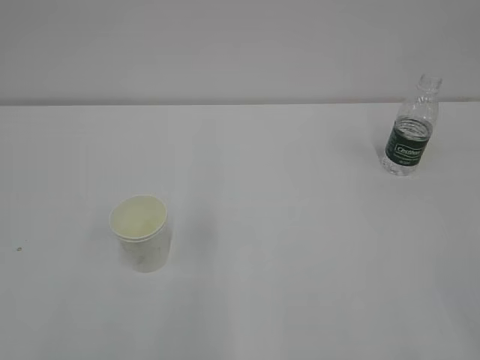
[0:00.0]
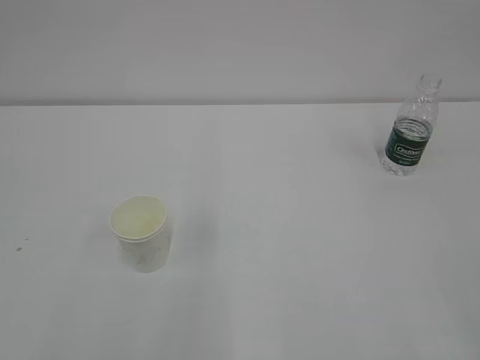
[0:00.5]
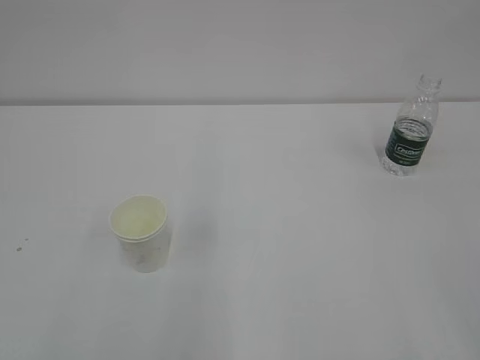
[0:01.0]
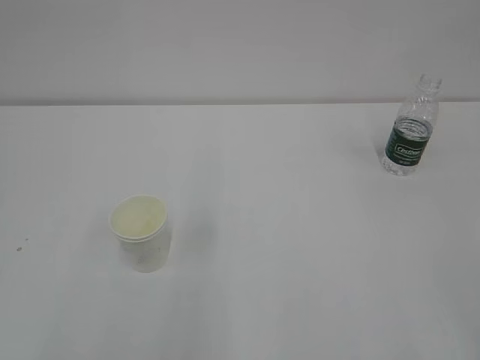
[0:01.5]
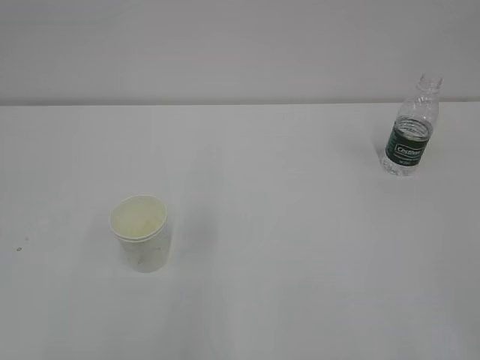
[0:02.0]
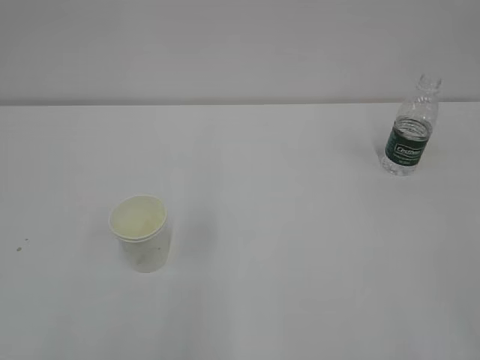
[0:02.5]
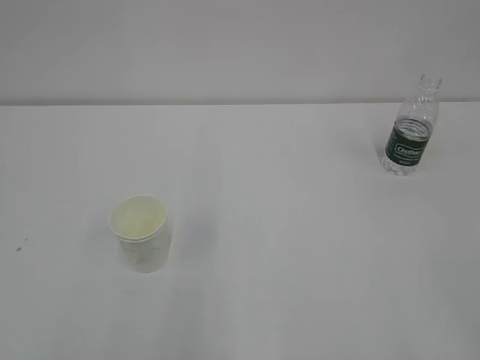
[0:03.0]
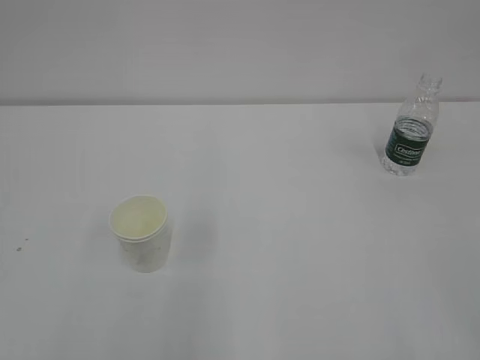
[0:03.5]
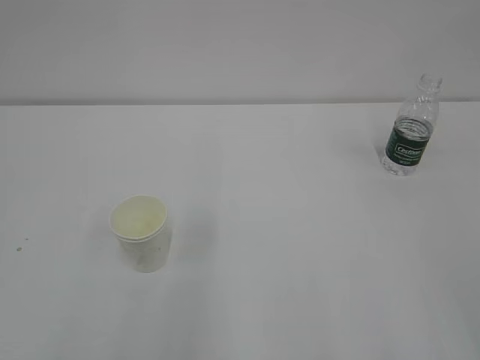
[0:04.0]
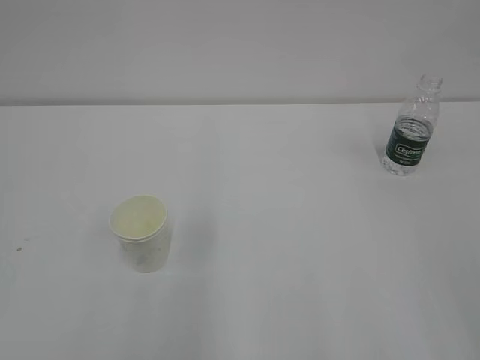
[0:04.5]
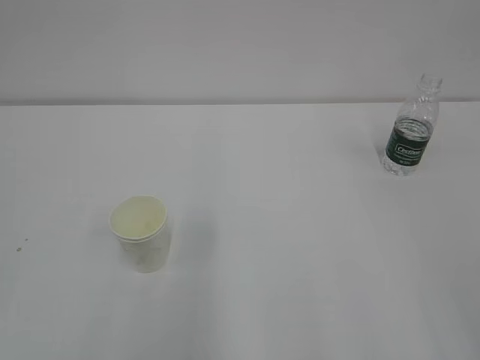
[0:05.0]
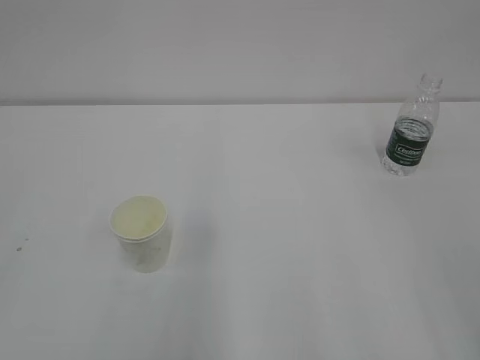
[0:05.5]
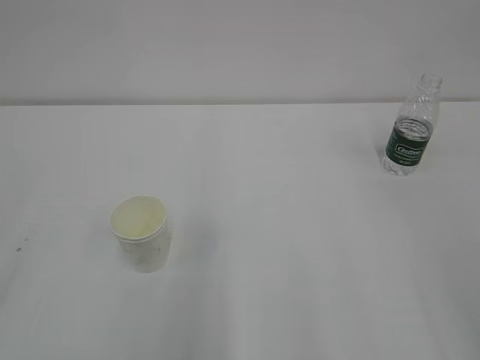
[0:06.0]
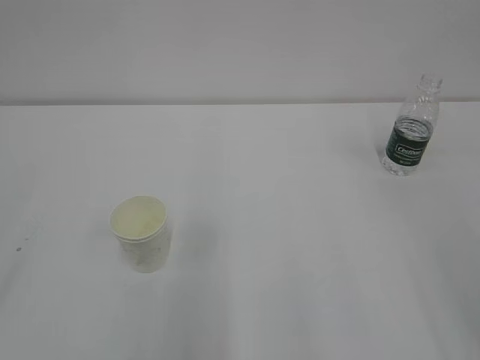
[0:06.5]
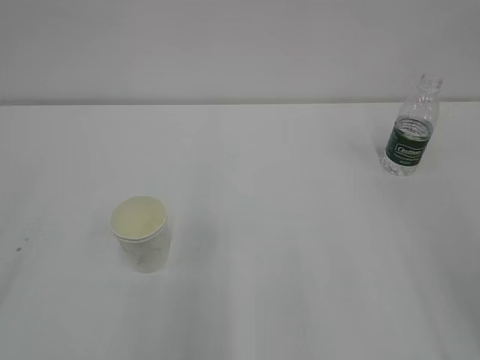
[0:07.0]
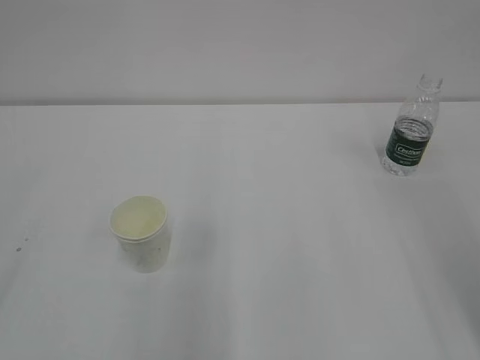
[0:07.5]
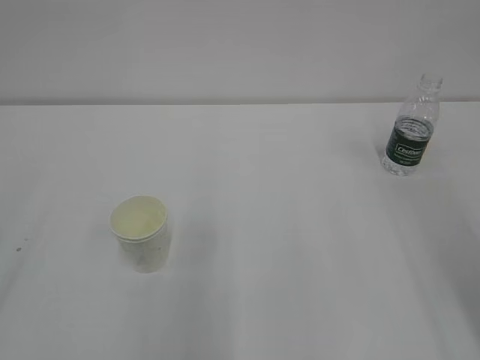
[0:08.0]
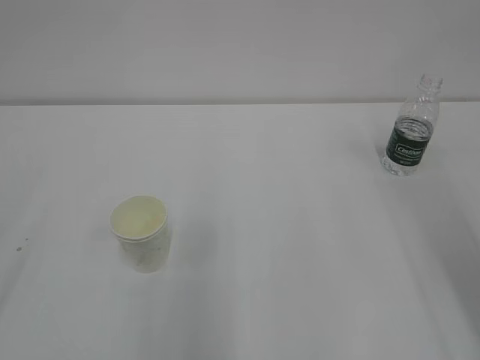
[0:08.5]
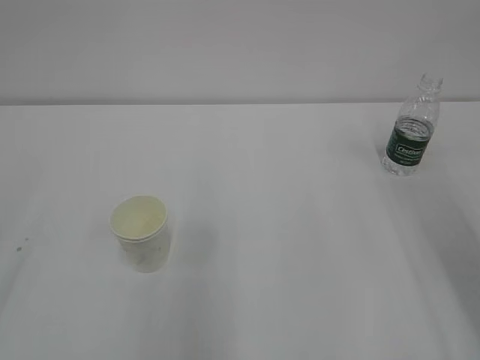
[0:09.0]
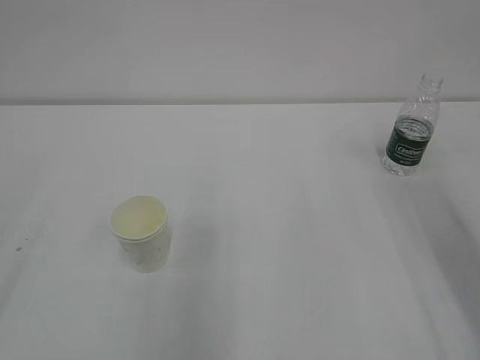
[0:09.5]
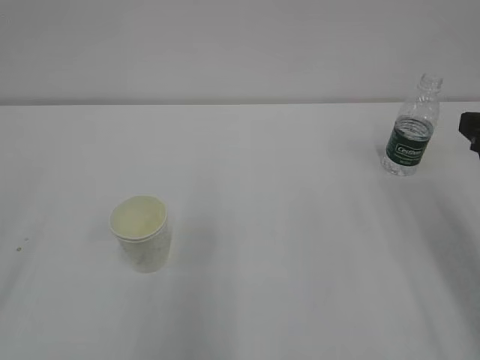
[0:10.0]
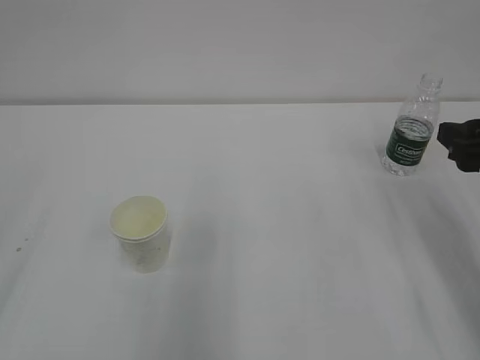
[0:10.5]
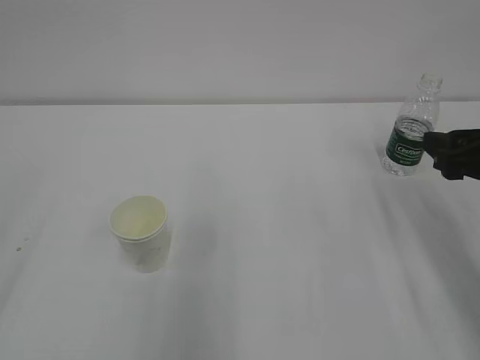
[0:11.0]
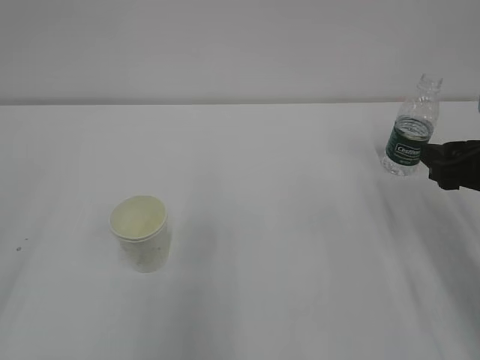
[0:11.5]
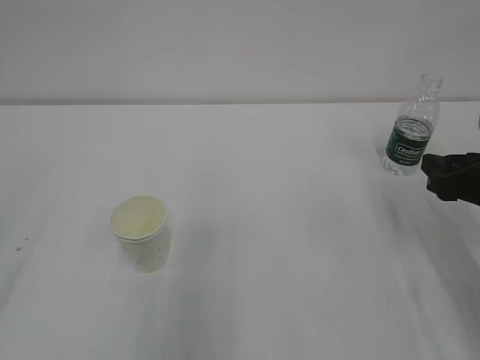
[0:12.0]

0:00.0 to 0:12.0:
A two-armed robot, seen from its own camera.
0:10.0 to 0:12.0: The right gripper shifts about 10 cm downward.

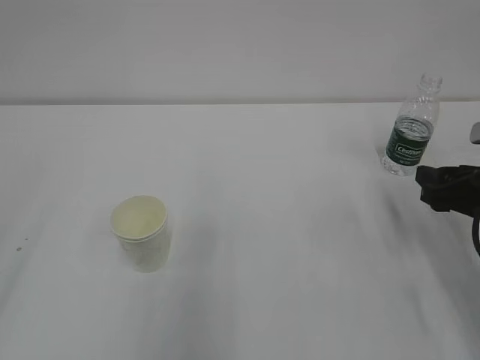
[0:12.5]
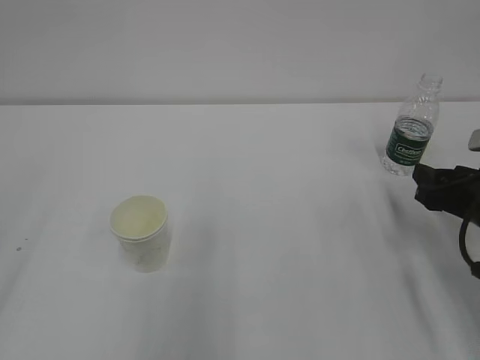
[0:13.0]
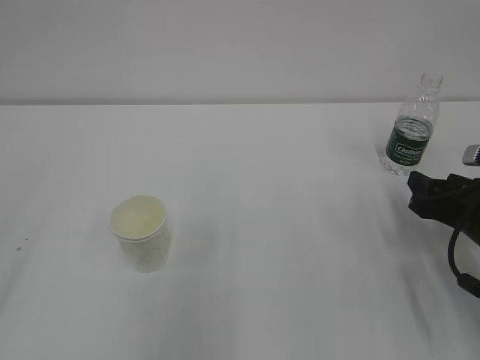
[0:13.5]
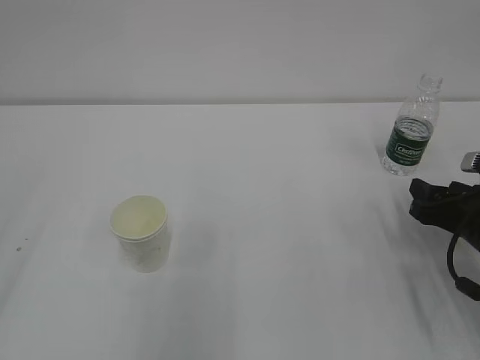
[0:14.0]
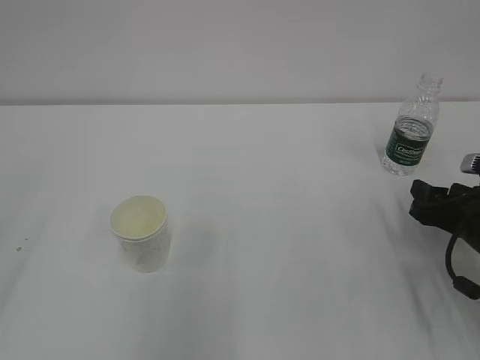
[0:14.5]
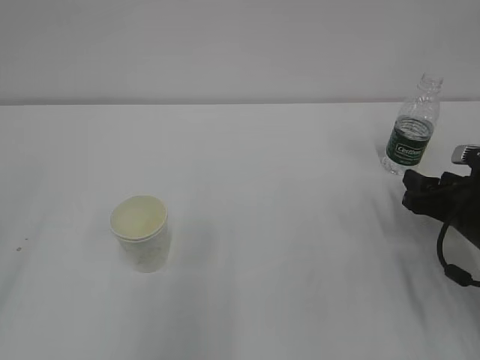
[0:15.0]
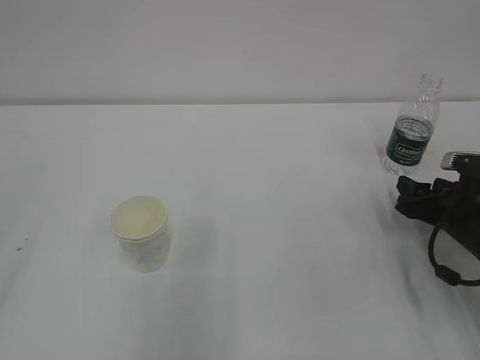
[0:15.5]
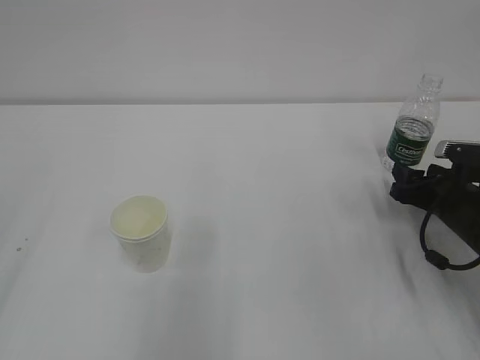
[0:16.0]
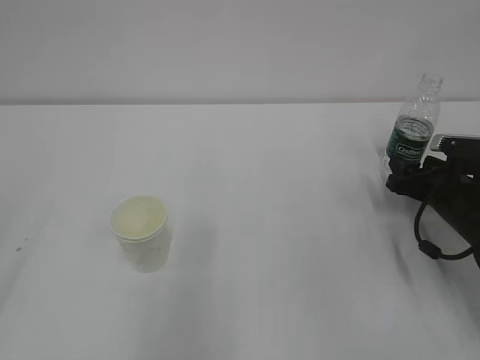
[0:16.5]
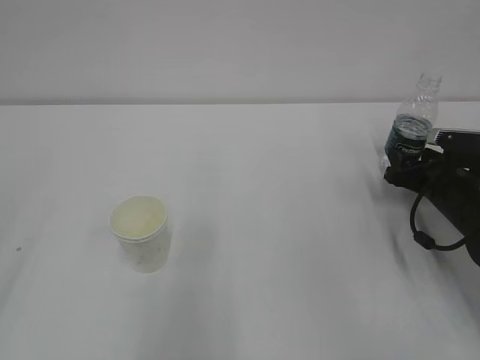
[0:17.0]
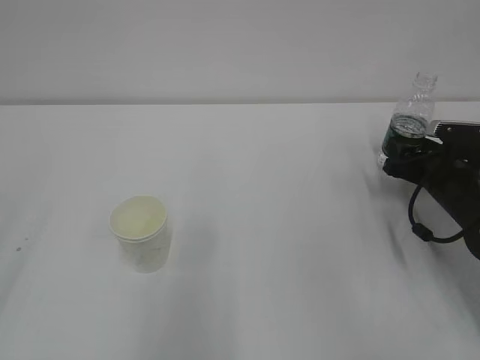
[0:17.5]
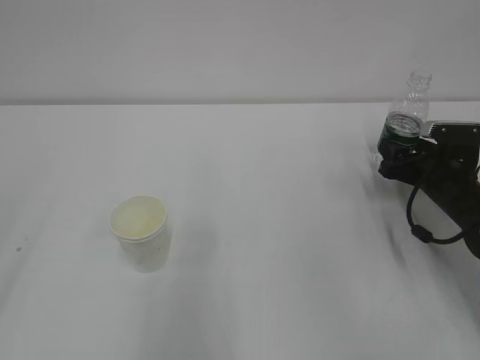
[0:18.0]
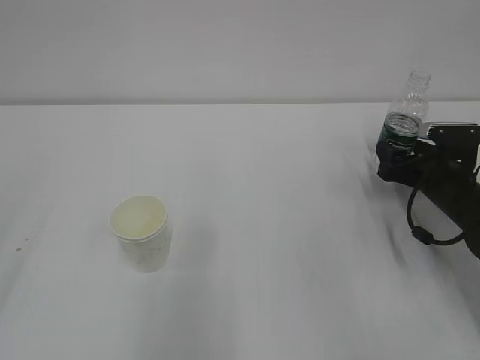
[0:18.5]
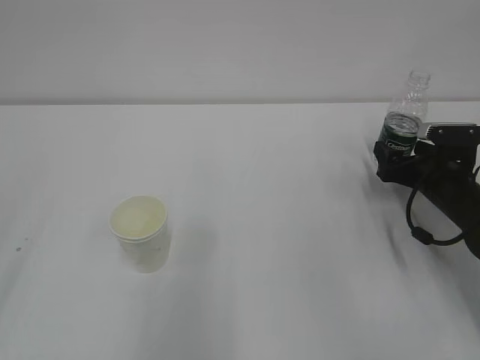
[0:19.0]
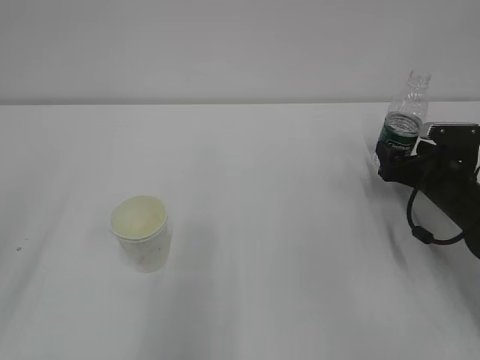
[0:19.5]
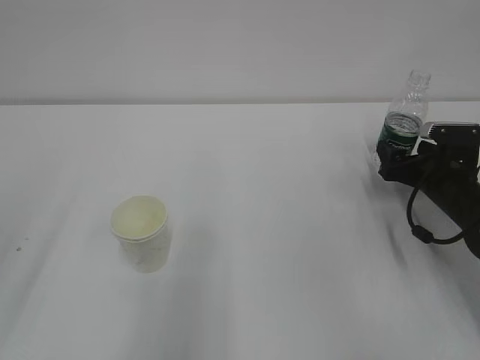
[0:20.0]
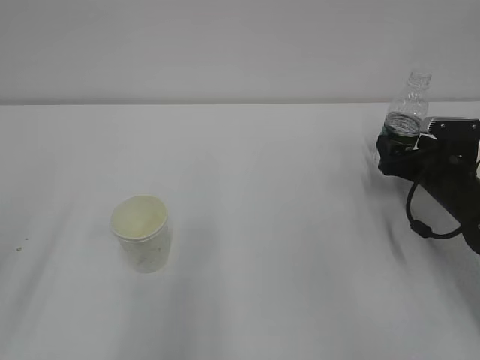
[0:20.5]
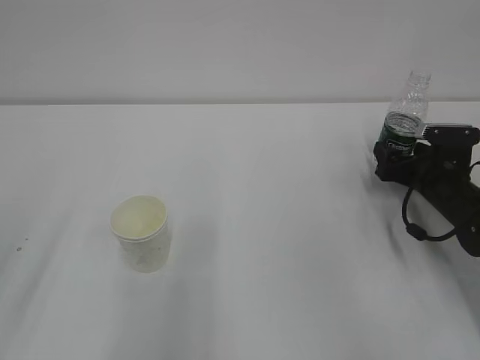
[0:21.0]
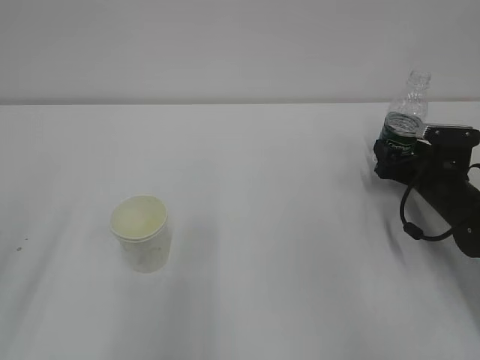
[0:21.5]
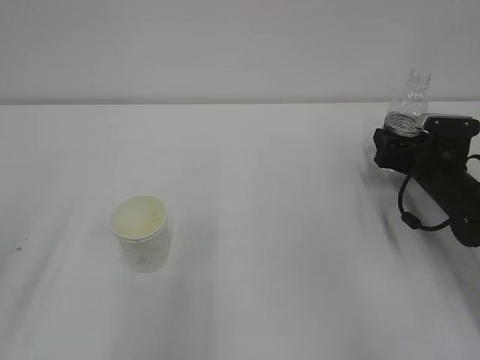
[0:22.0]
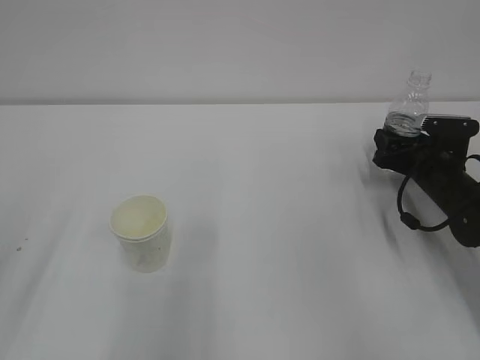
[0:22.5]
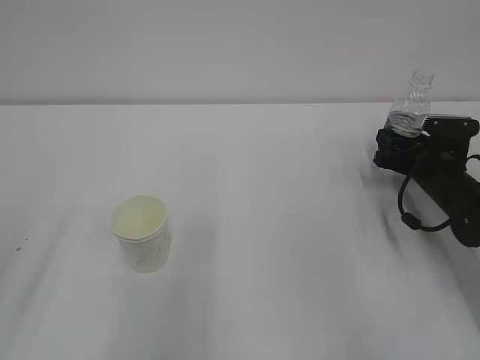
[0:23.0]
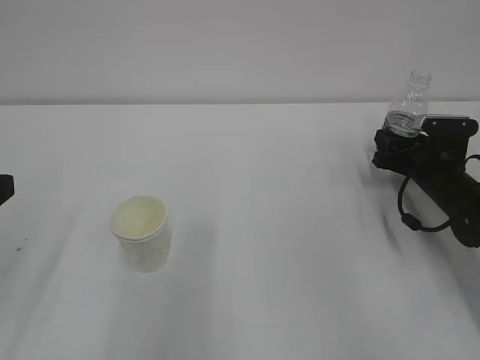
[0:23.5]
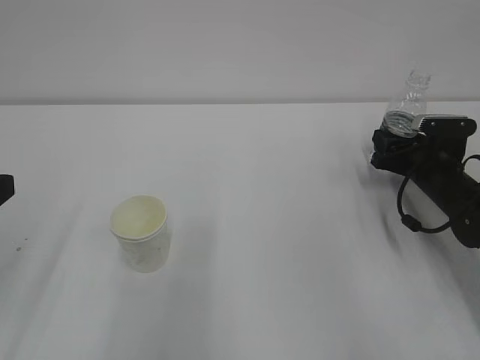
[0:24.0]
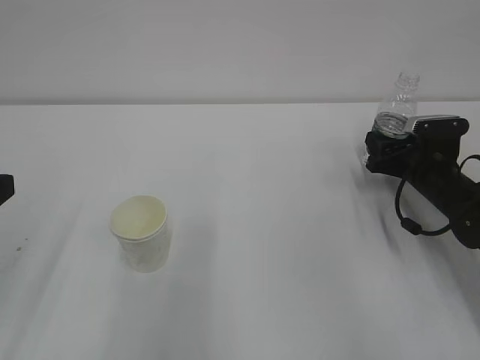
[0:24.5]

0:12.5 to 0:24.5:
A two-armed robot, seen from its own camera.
Step, 0:12.5 to 0:23.0: Grab the bottle with right gripper.
0:12.5 to 0:14.5: The right gripper moves downward, approximately 5 cm.
0:14.5 to 0:16.5: The right gripper moves forward, some 5 cm.
0:16.5 to 0:18.5: The right gripper opens up.
0:20.5 to 0:22.5: The right gripper closes its fingers.
0:22.5 to 0:24.5: The right gripper closes its fingers.

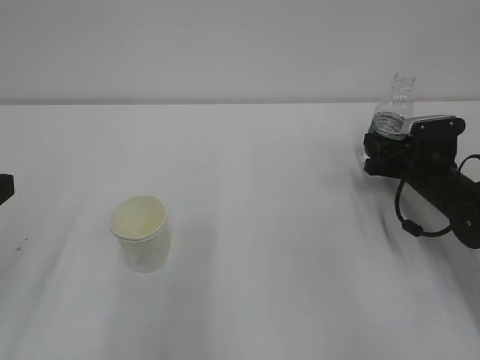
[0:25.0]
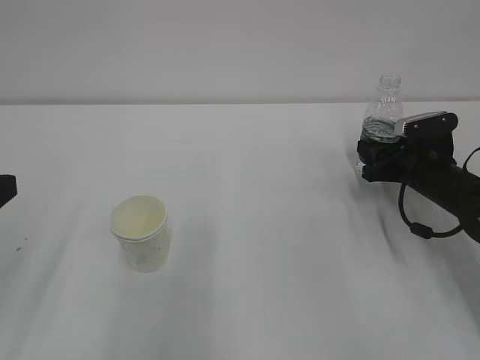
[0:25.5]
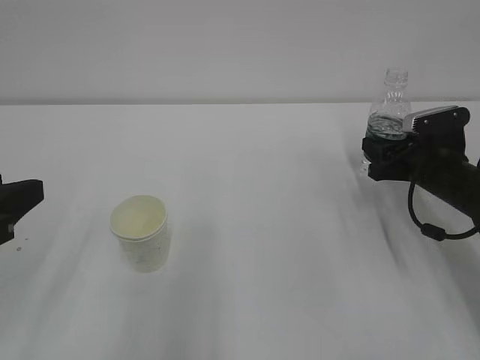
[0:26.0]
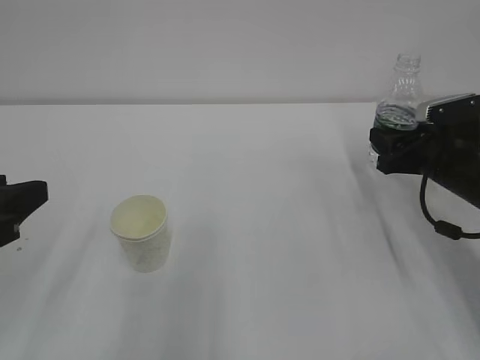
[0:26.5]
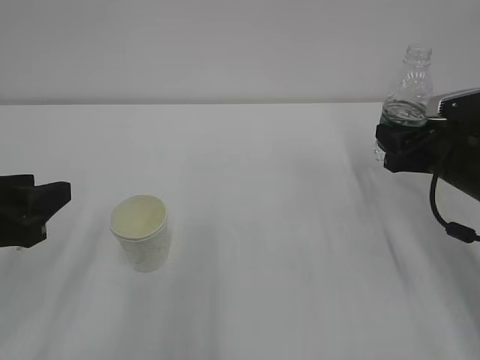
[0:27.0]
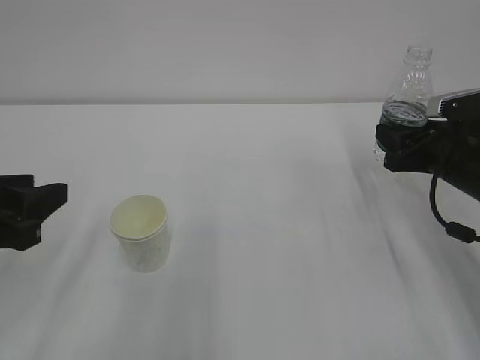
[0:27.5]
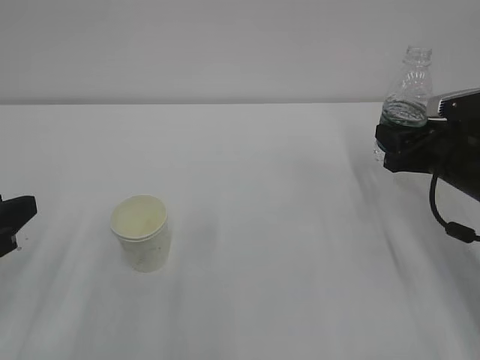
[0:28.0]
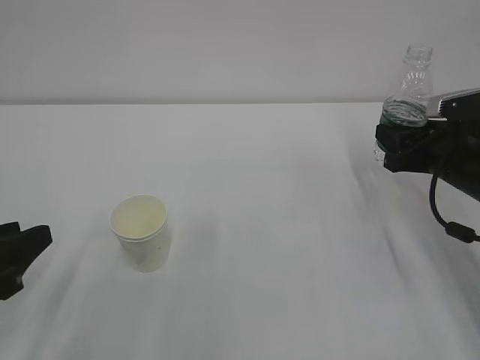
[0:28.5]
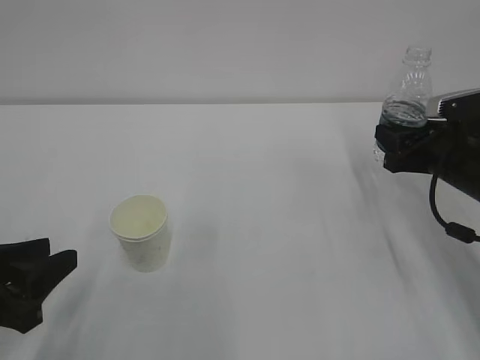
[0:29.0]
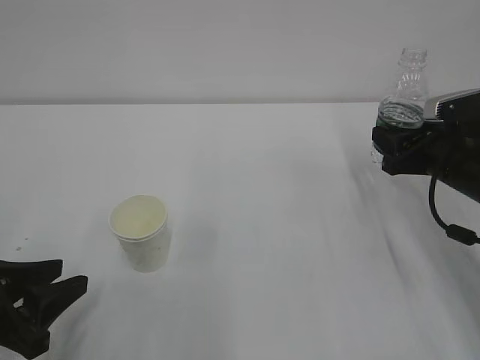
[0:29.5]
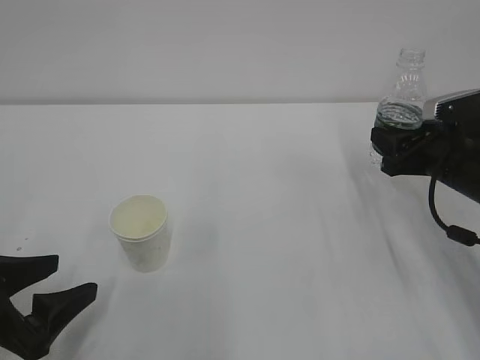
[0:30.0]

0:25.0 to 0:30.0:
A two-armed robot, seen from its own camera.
0:25.0 to 0:27.5: The right gripper goes some 10 cm upward and backward.
0:27.5 to 0:30.0: The left gripper travels downward by some 10 cm, and opens.
